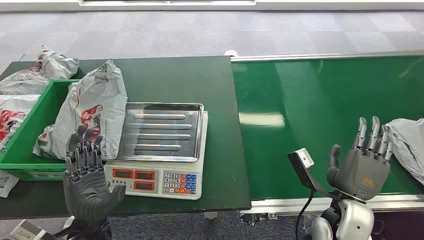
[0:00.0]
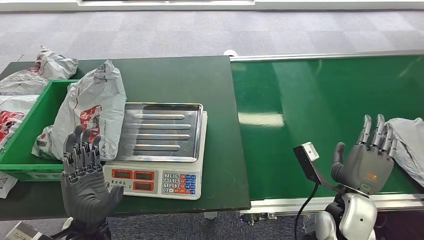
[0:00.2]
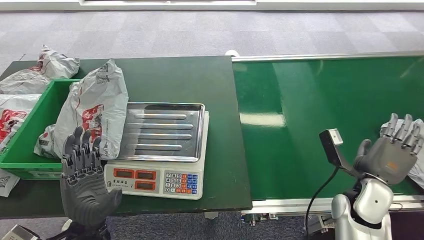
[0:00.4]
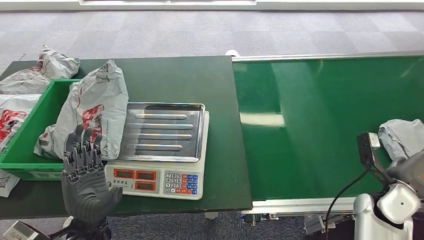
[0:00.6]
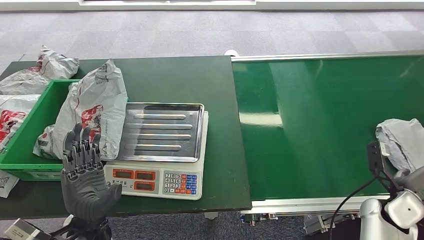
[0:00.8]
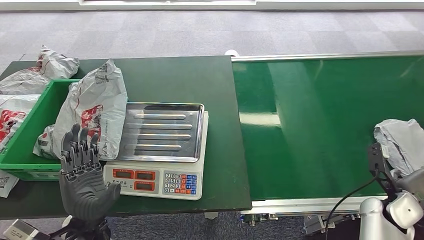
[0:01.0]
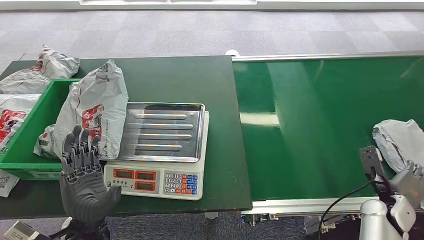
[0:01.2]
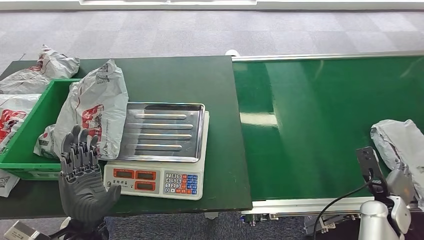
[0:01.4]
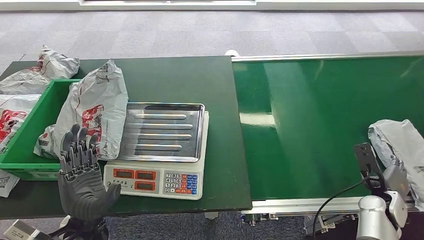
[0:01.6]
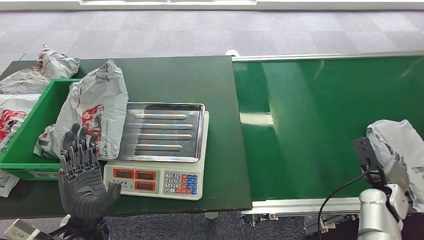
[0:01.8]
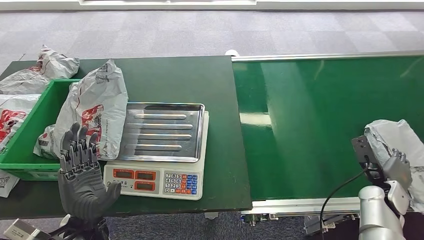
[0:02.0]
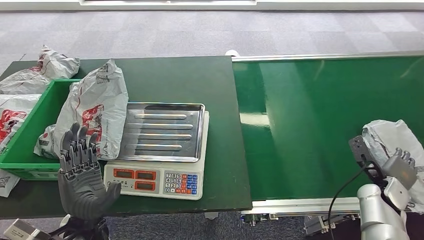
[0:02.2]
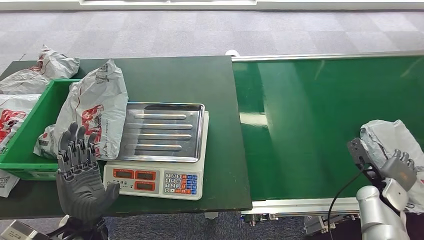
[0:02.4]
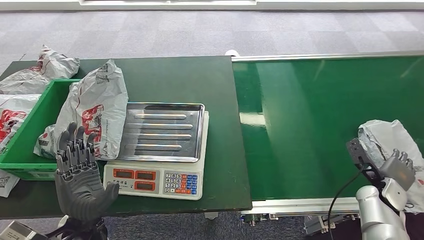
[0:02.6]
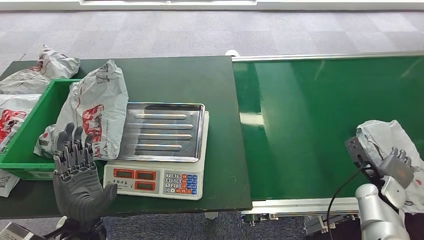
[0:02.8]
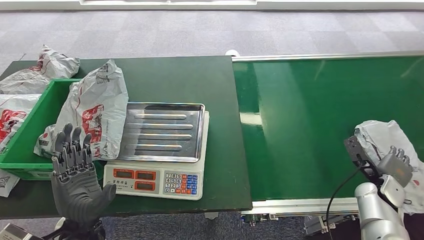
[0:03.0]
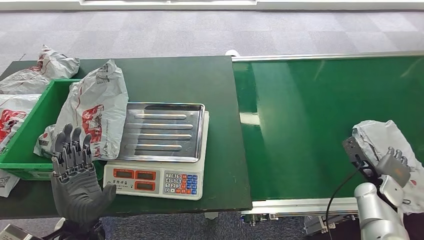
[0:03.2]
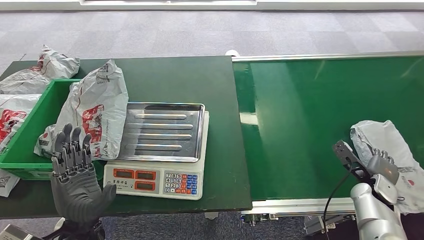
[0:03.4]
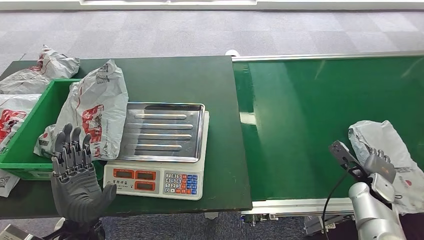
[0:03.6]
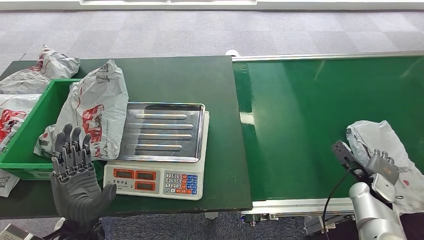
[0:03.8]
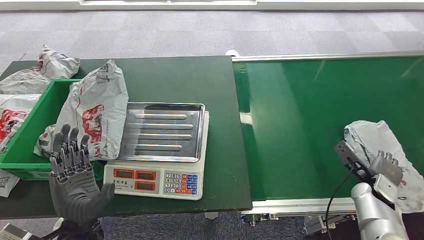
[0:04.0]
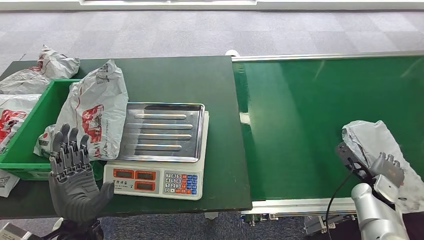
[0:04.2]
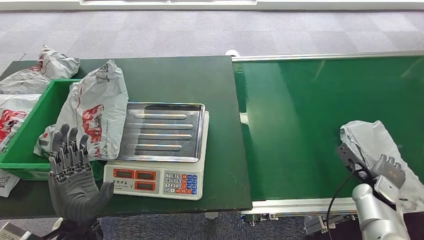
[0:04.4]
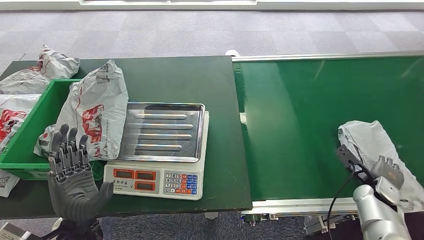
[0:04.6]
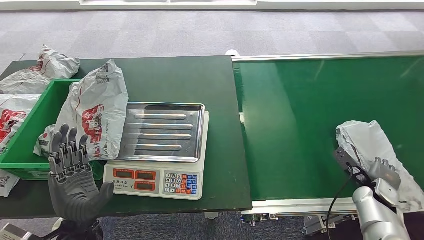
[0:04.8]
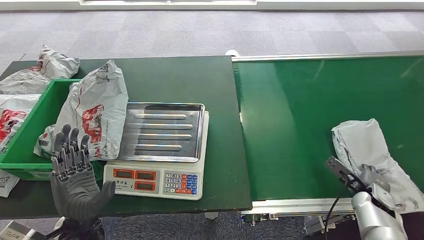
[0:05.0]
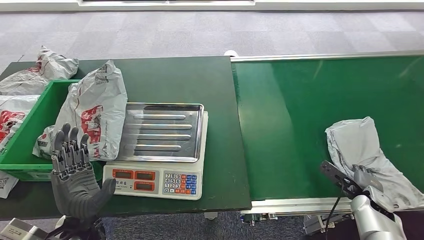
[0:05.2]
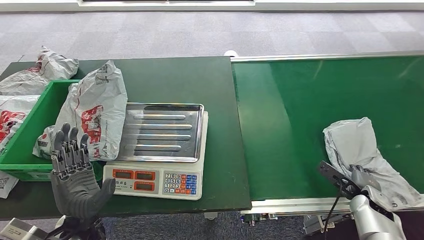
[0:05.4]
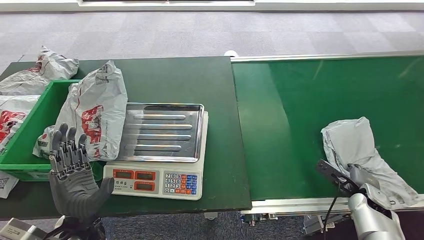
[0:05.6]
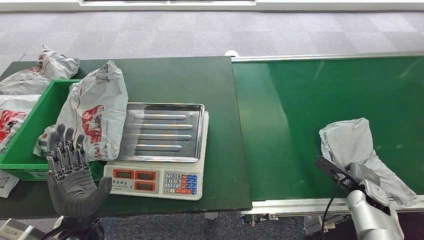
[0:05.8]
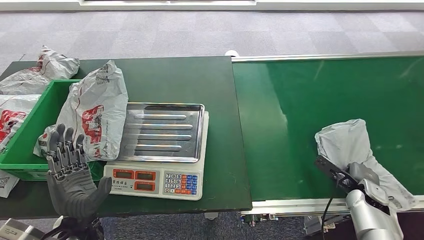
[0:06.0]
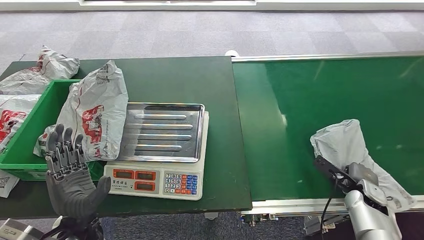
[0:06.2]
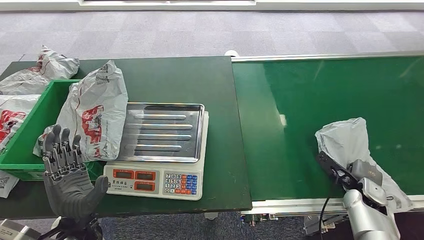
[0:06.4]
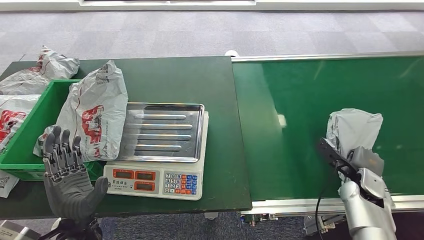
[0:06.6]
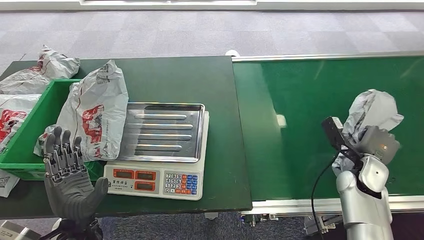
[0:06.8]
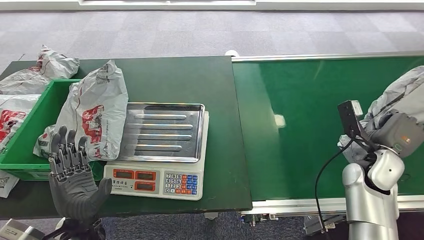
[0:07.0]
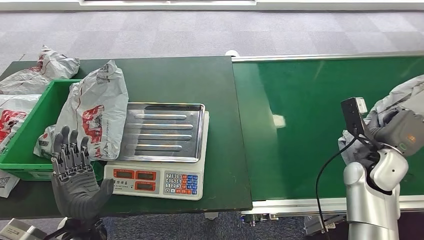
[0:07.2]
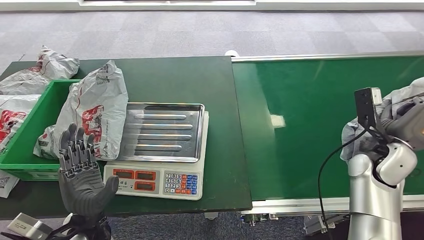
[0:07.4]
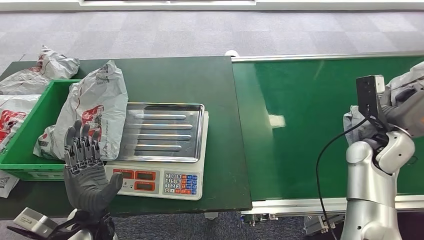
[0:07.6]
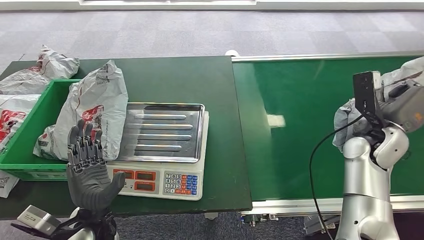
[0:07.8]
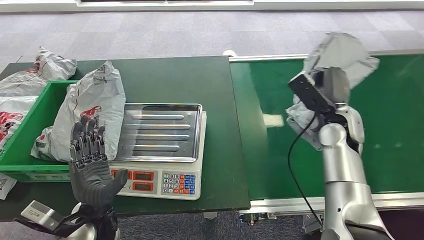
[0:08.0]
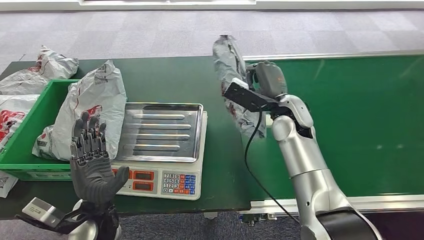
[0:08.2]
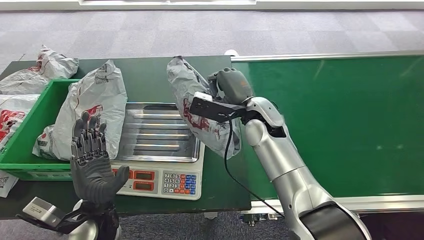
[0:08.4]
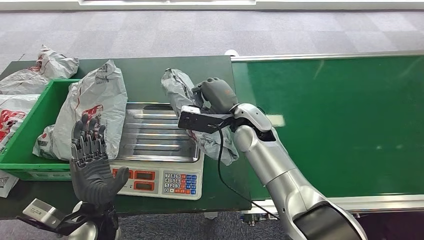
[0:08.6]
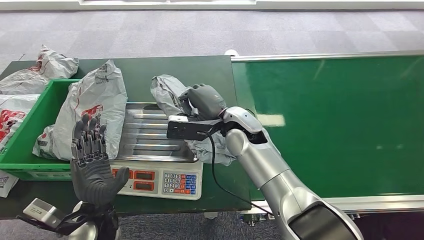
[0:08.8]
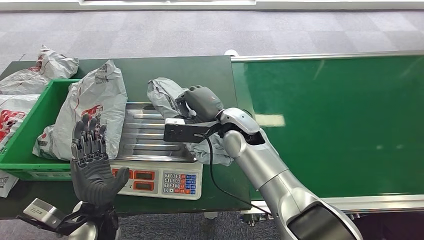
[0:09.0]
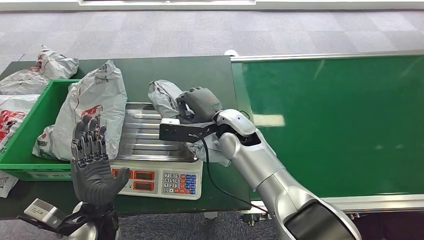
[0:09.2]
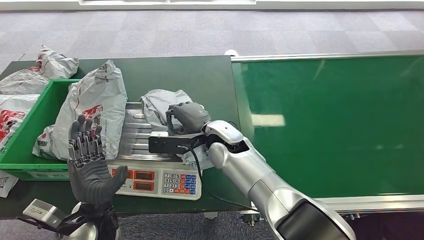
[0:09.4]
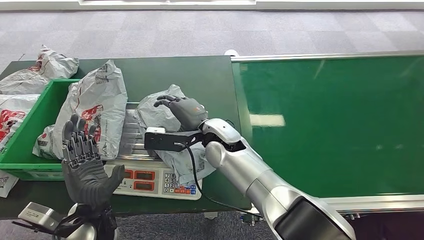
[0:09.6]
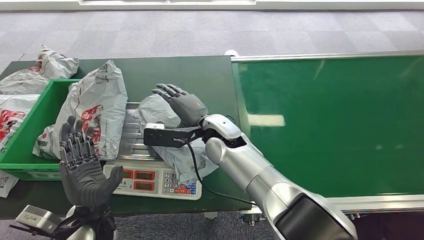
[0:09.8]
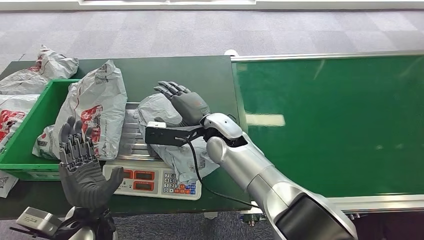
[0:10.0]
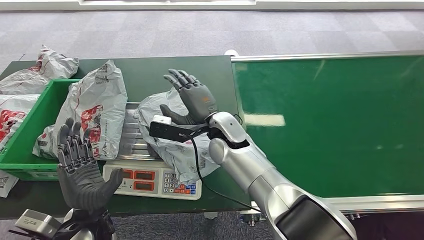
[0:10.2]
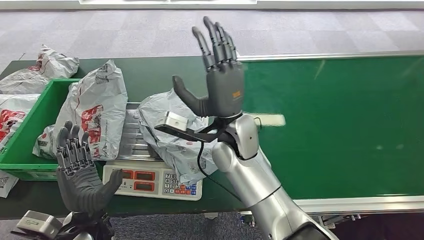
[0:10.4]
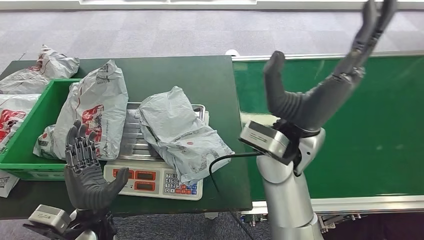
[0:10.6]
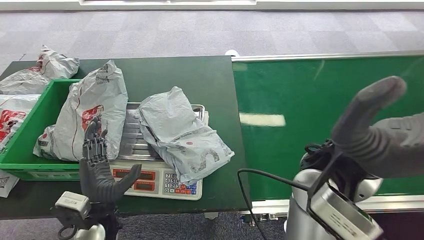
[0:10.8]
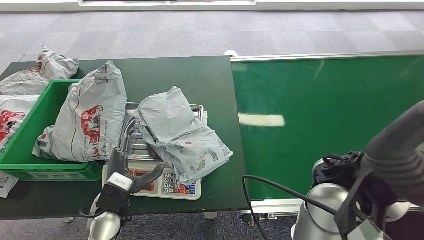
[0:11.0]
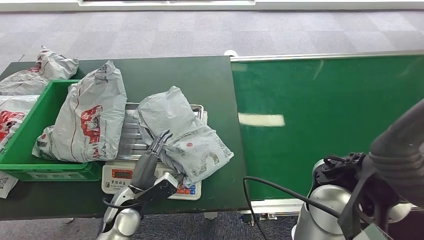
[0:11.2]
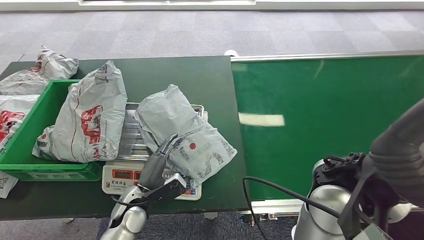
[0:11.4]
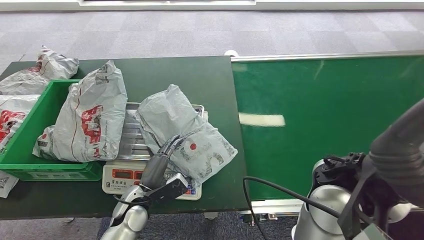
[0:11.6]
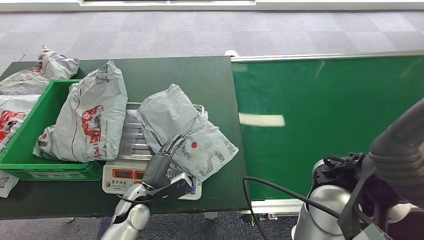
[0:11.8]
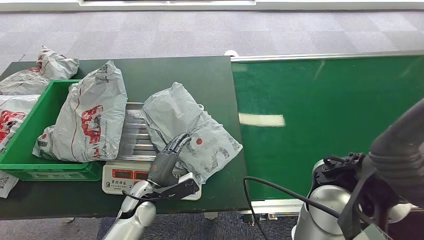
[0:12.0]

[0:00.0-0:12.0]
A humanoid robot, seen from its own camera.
Step, 0:00.0 to 0:07.4: Pick up the package from the conveyor belt.
Step, 0:07.6 to 0:10.4: Place the package onto the inbound machine.
0:01.6 to 0:03.0: The hands make only small movements.
0:03.0 to 0:04.4: The hands stay close to where they were, moving slightly.
0:06.0 to 0:07.6: The right hand moves upward and forward, roughly 20 cm.

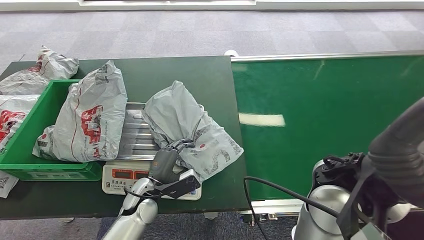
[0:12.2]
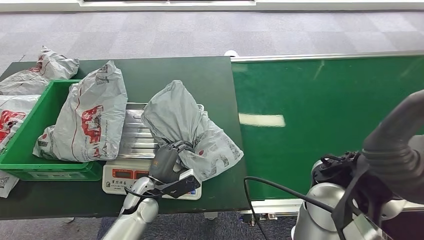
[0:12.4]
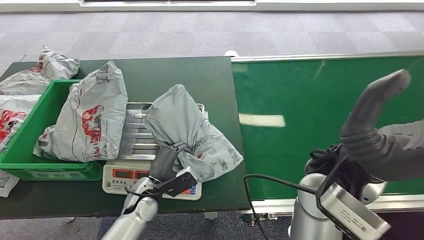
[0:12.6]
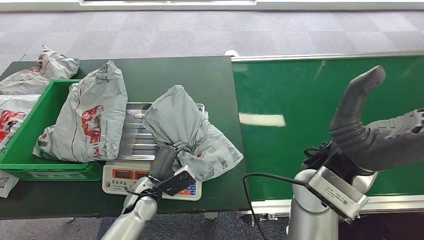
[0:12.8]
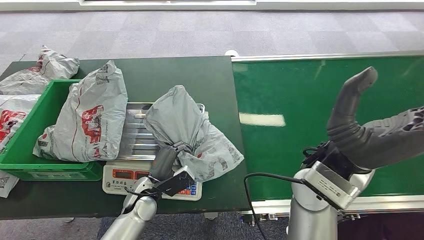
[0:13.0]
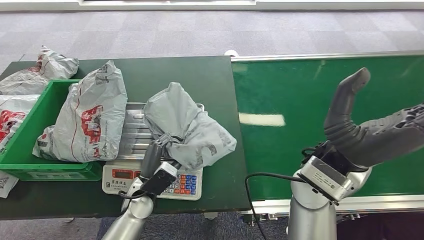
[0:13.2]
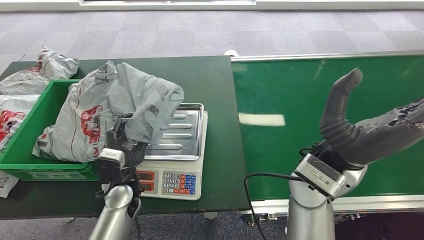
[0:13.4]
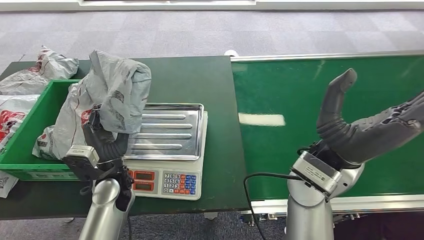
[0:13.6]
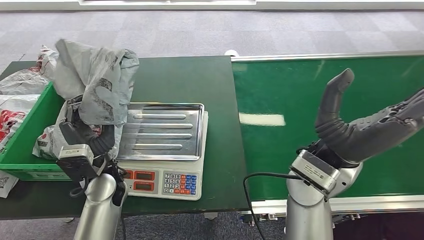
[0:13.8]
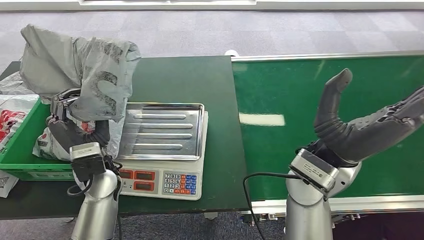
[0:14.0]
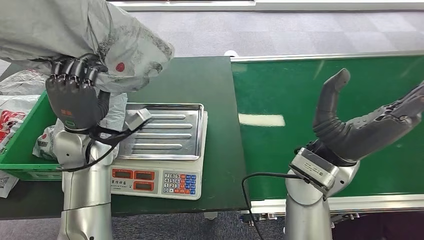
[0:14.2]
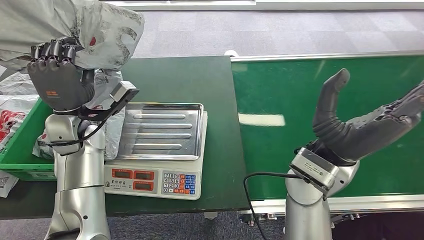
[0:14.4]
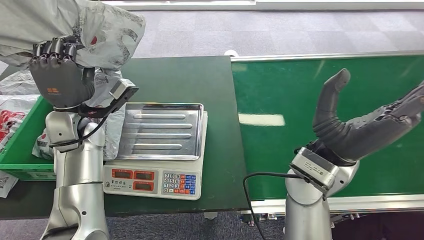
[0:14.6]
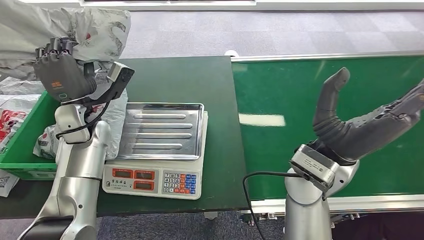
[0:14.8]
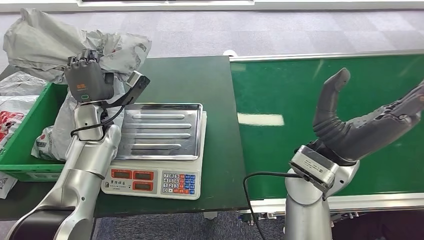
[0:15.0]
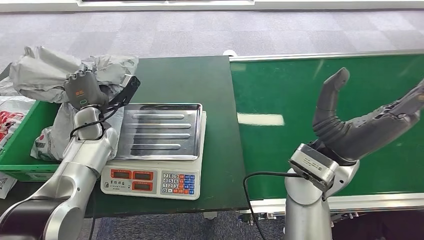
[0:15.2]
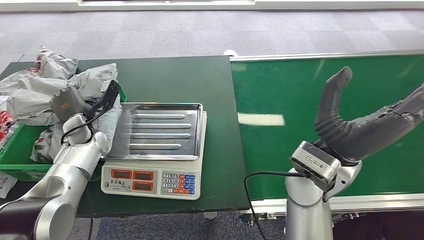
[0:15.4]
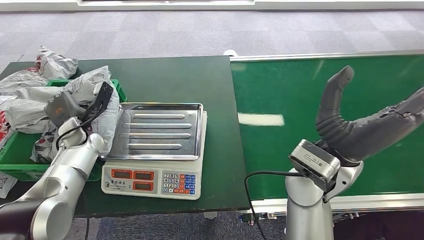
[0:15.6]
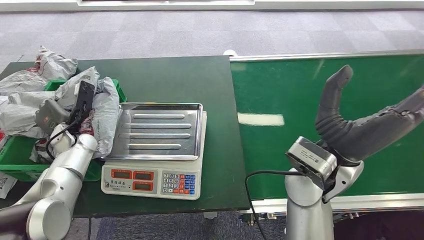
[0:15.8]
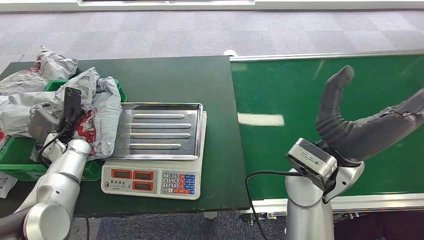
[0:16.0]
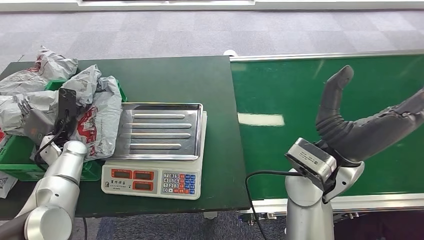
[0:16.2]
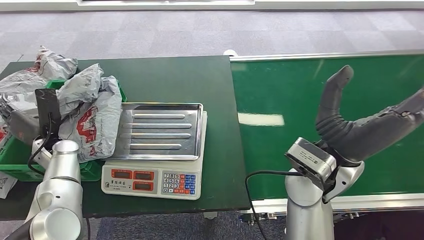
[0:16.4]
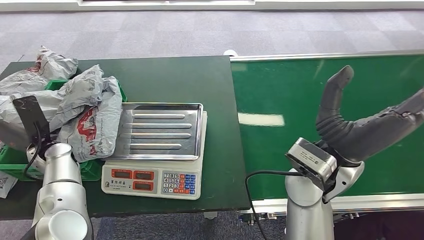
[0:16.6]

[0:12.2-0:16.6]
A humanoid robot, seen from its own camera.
Step, 0:12.2 to 0:14.0: Pick up the package from the inbound machine.
Step, 0:14.2 to 0:16.6: Place the package into the parcel locker.
0:15.2 to 0:16.6: The left hand goes roughly 10 cm to the left and backward.
